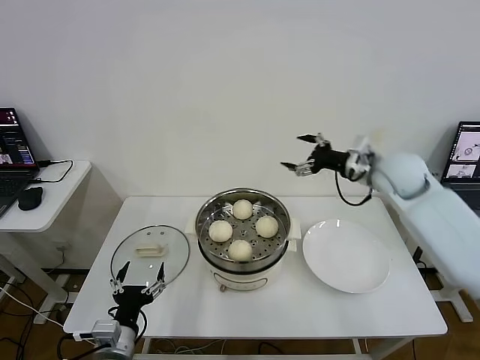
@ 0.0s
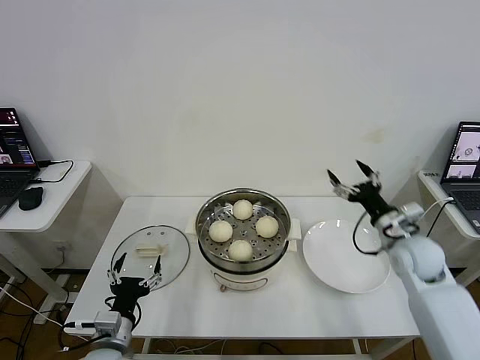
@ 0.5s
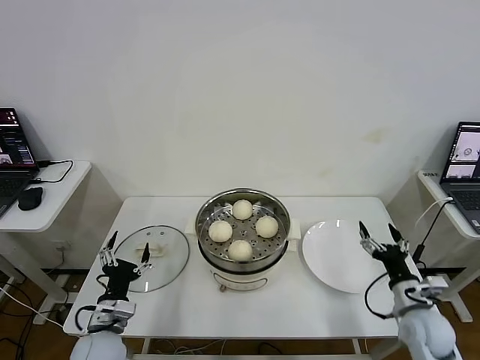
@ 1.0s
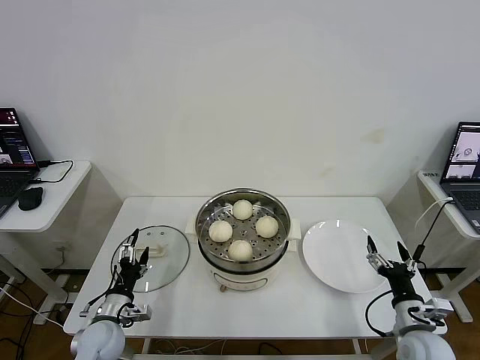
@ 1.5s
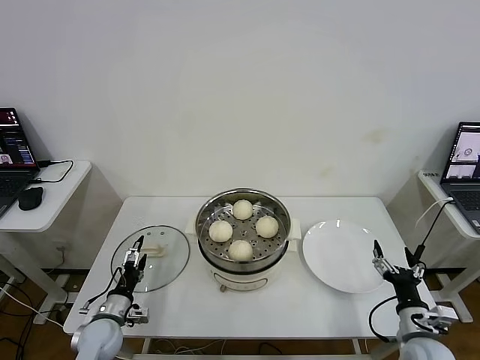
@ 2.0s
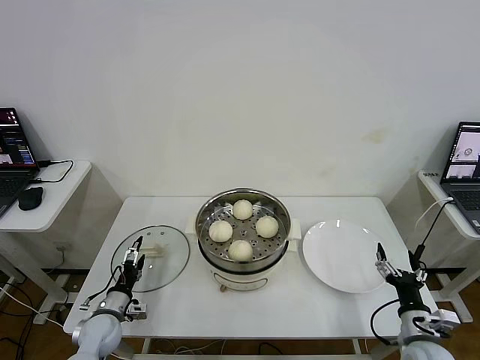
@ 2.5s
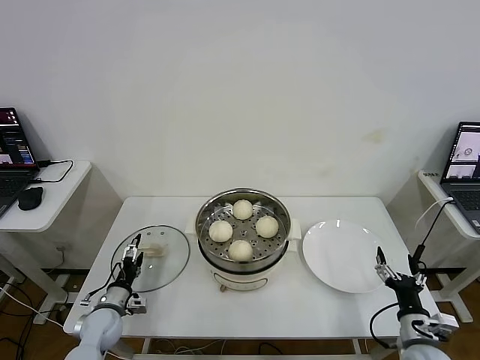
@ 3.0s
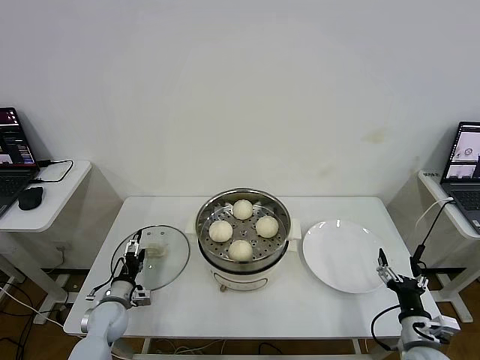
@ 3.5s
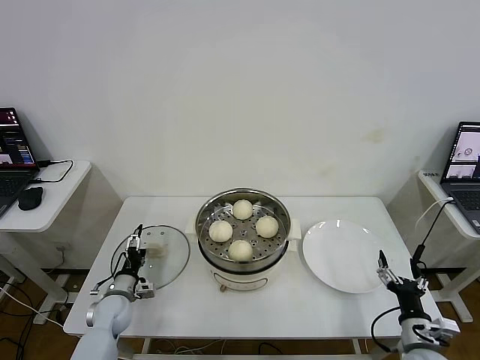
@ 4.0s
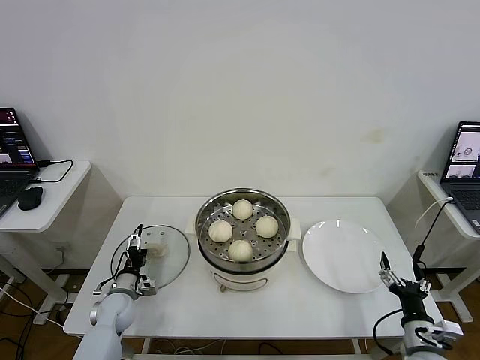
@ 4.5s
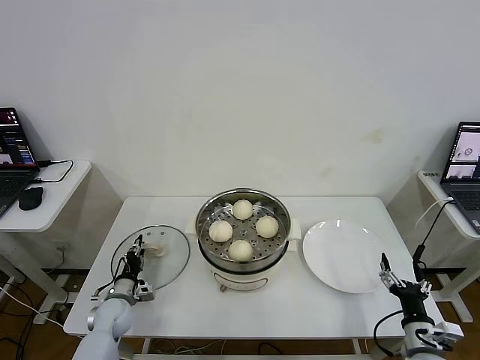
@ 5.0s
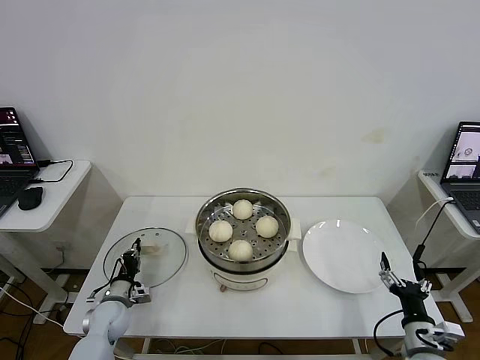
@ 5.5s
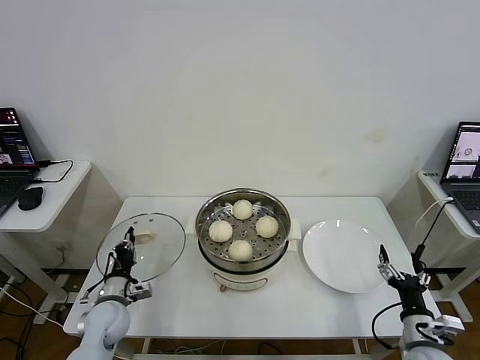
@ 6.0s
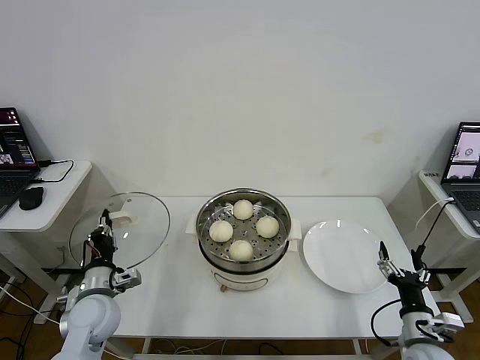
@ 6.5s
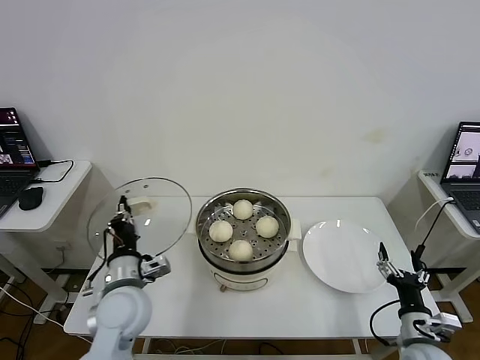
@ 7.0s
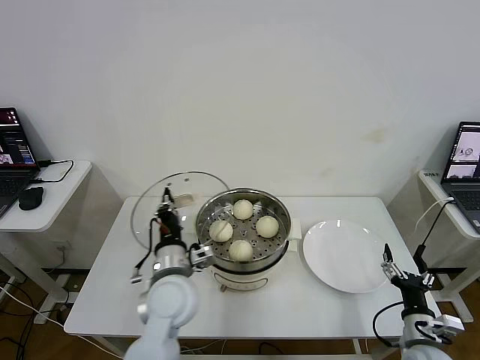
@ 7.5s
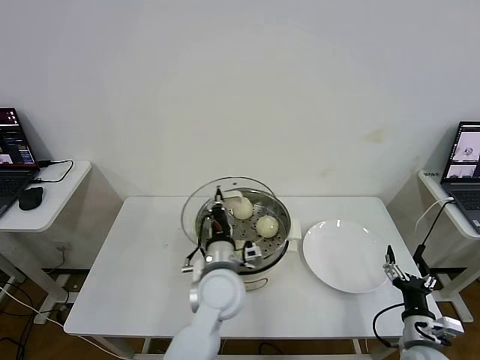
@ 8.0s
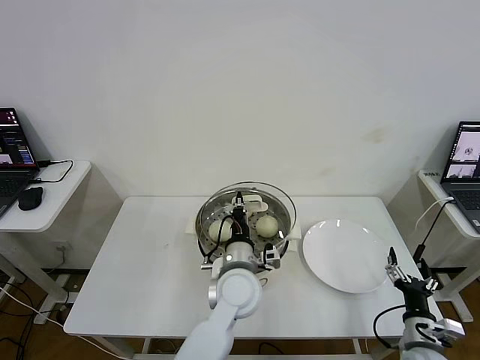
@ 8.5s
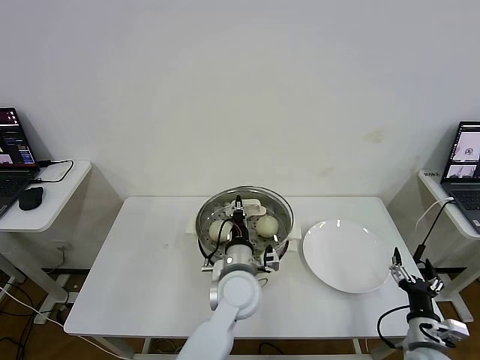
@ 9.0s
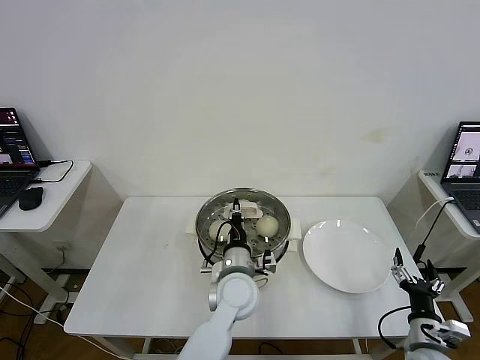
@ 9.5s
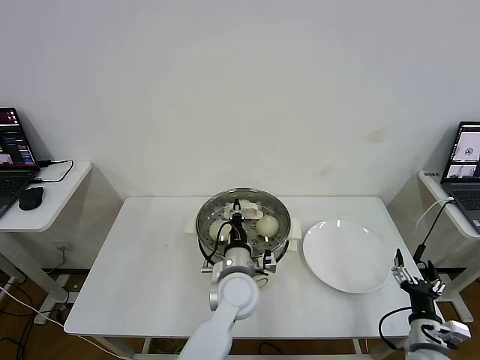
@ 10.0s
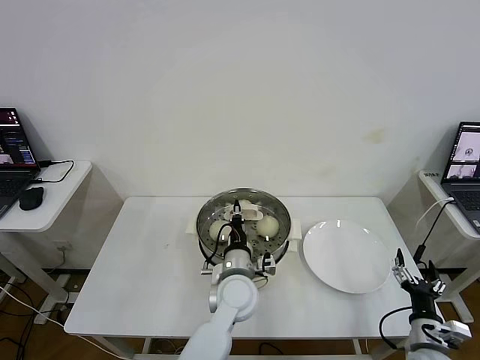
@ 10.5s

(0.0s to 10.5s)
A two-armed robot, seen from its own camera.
Task of the whole recording: take steamed baozi put them in steamer then cover it.
Step, 0.0s - 5.5s: Grasp the pot lid with left gripper.
0.0s - 2.0s: The right gripper goes approximately 40 cm backward and downward. The left gripper goes approximately 15 cm forward, downward and to the left.
2.0s - 4.0s: The left gripper goes roughly 5 cm forward.
4.0s - 6.5s: The left gripper heads upward and backward, covering approximately 15 cm, and closes up.
6.5s - 8.5s: The left gripper is displaced to the right by approximately 30 cm.
8.5s - 10.5s: The grippers make only small movements.

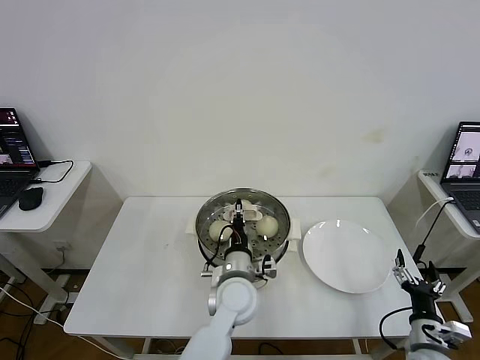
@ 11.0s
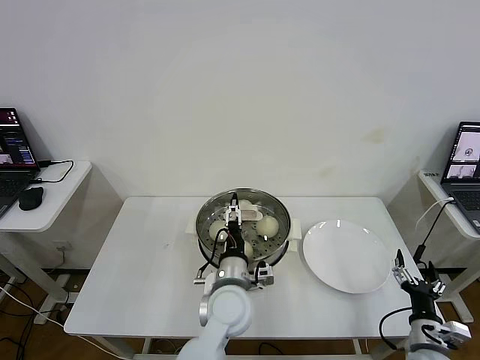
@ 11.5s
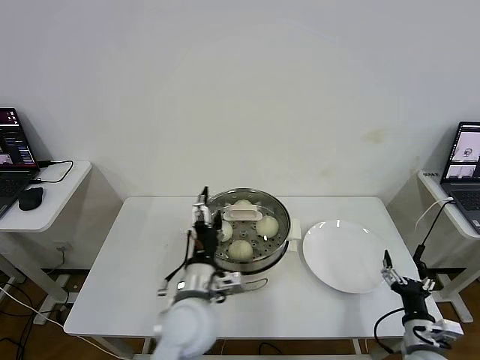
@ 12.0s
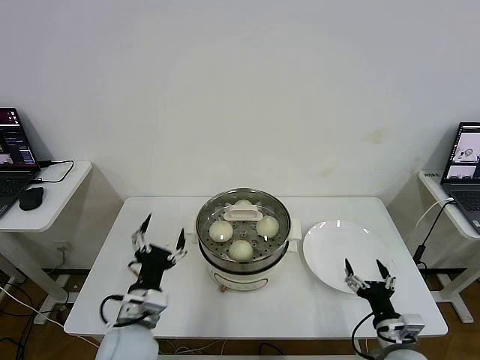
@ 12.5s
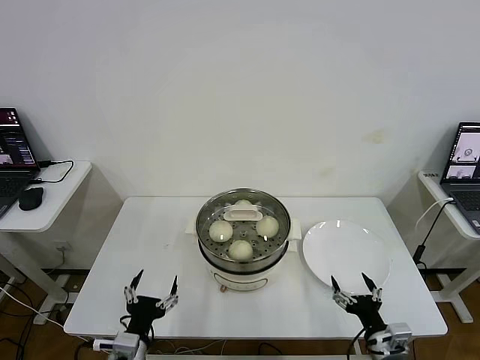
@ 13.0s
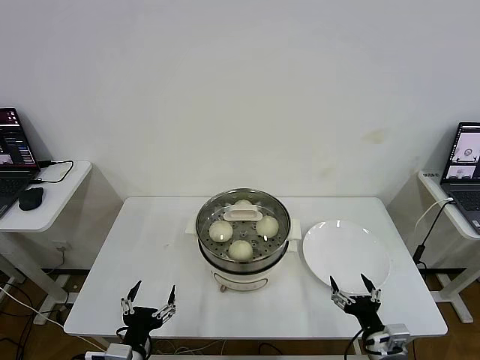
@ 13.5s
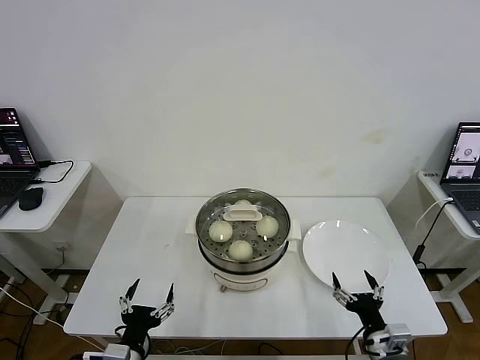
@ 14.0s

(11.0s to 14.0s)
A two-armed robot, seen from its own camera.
Task of the whole recording: take steamed baozi put them in steamer then cover it.
11.0s - 12.5s: The left gripper heads to the left and backward, covering approximately 20 cm, and opens its fingers.
12.5s - 14.0s: The left gripper heads backward, downward and to the left, covering some 15 cm.

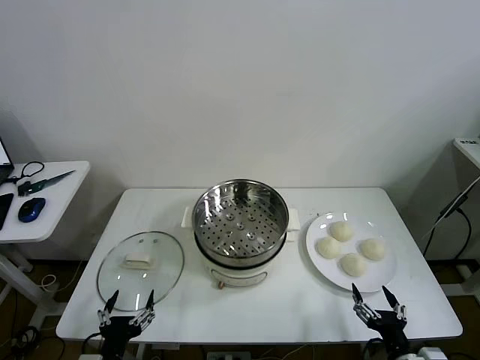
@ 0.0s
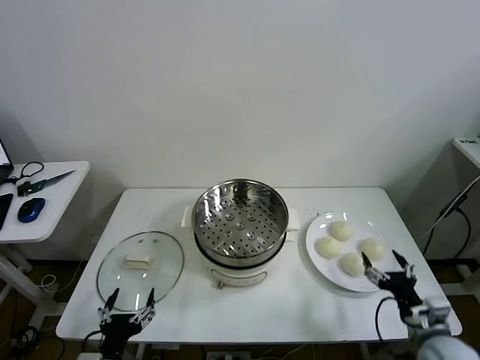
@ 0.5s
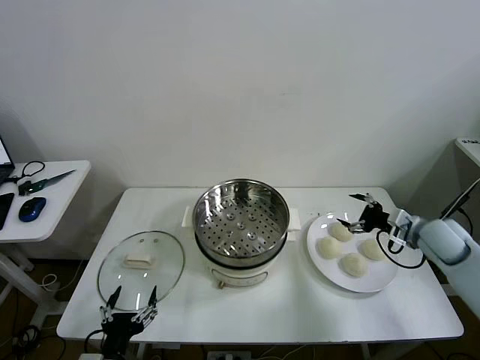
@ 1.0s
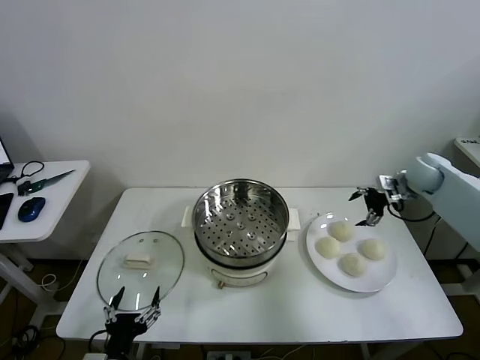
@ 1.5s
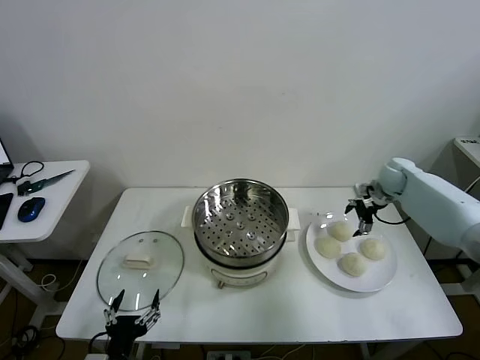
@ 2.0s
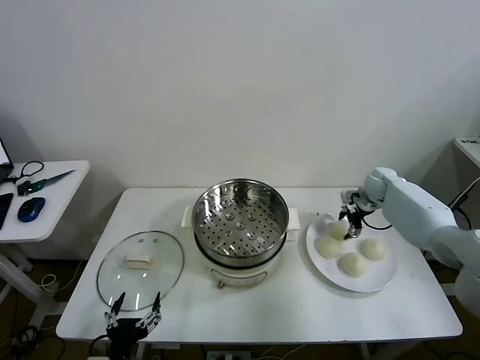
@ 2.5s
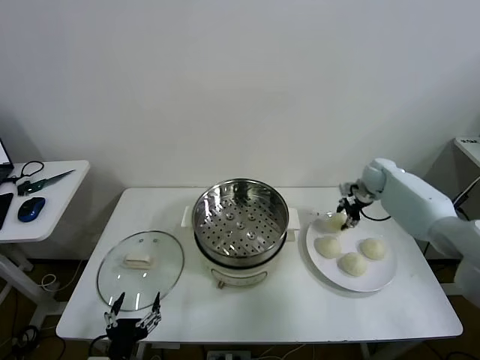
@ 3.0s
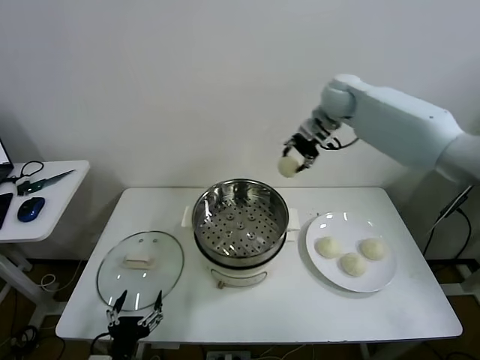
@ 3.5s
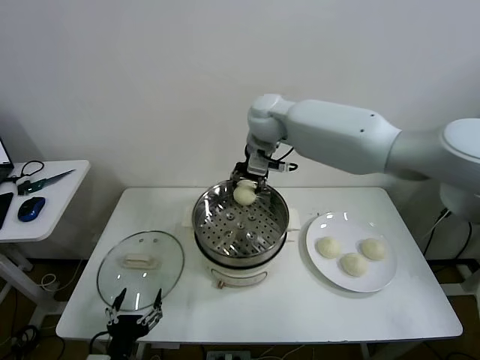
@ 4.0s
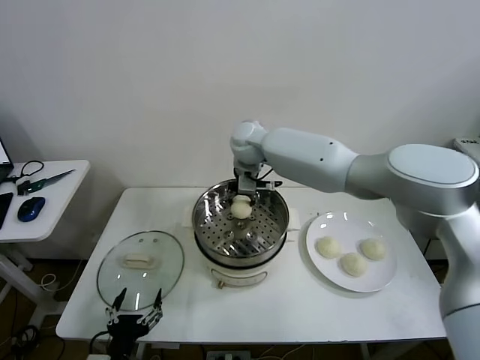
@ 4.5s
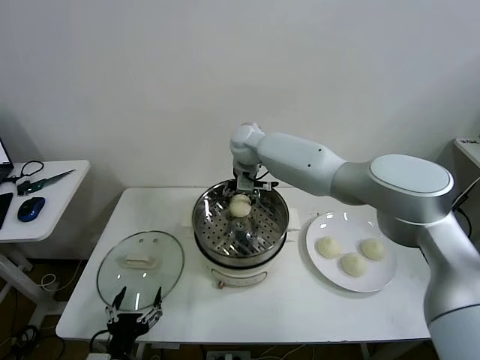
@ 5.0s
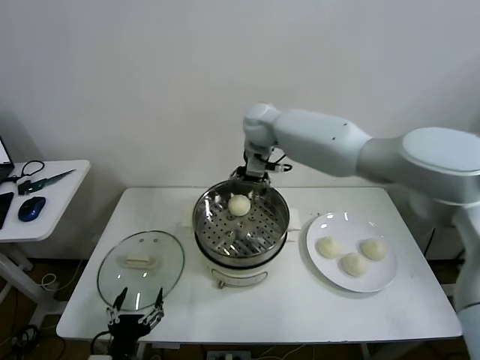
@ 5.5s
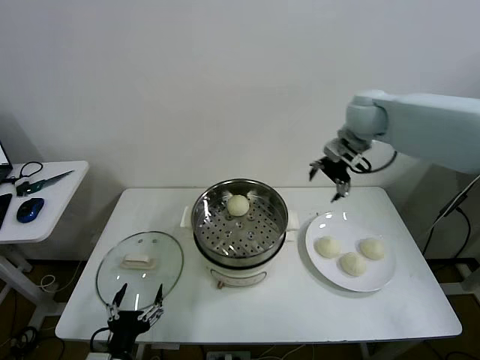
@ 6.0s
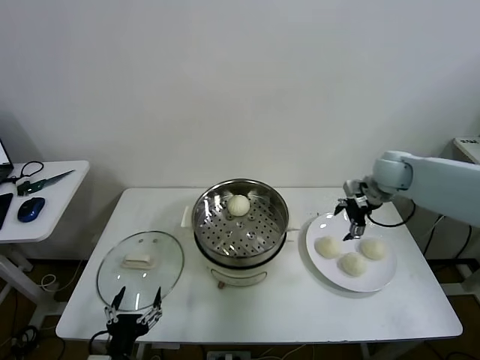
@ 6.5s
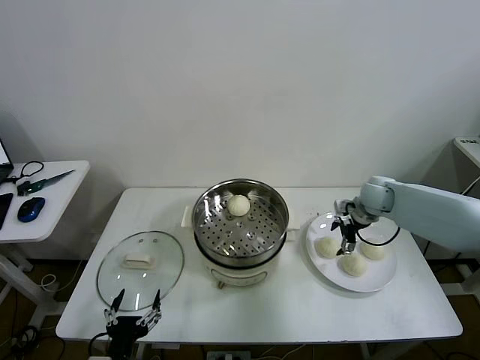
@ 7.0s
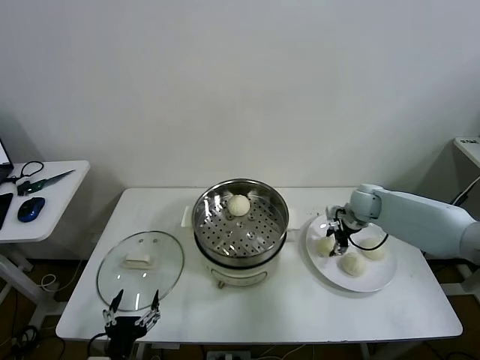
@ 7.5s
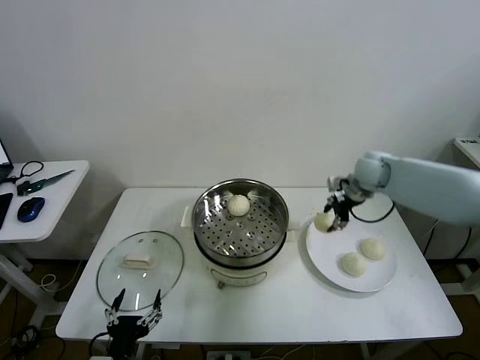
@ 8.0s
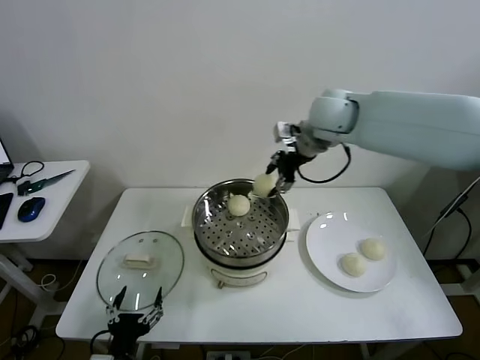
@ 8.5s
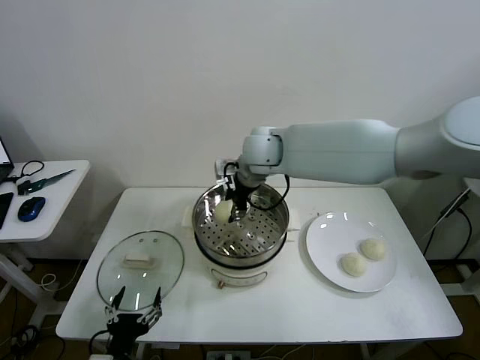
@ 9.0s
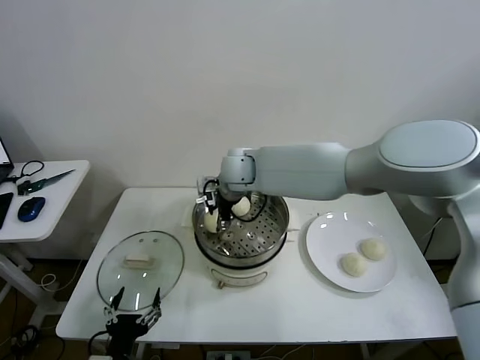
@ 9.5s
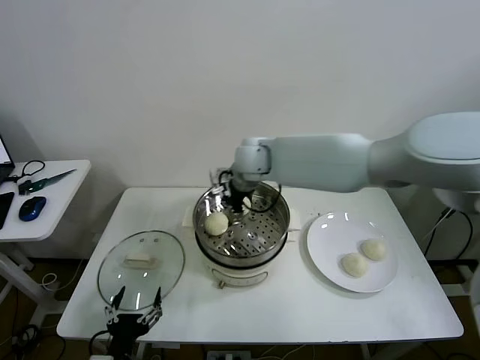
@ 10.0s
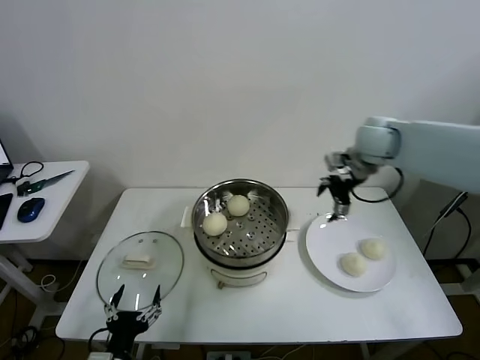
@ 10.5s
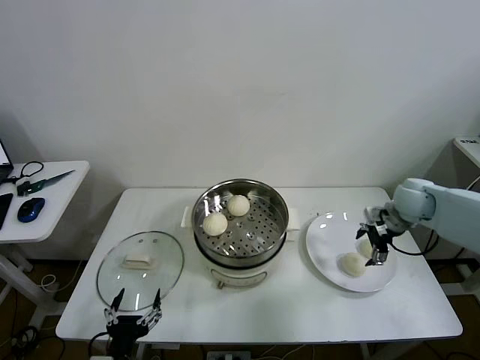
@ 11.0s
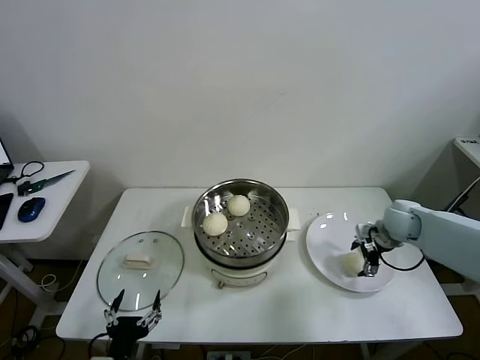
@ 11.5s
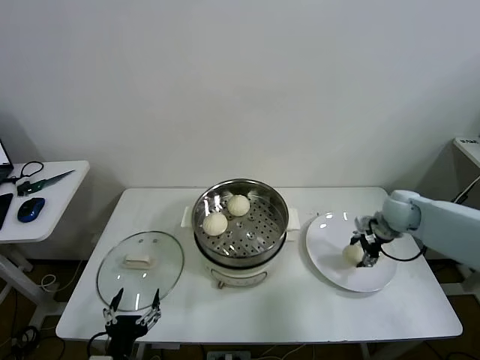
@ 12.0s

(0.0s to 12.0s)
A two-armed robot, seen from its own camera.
Task of the whole recording: take steamed baozi put them in steamer then cover it.
Step, 0.0s - 2.5s: Grasp the baozi in the plate with right gripper.
Step, 3.0s - 5.0s: Place the baozi on the steamer with right gripper.
Step, 5.5s - 7.0s: Grasp the baozi in the plate with right gripper.
Step, 7.5s - 9.5s: Place the baozi on the steamer with right gripper.
Step, 10.0s - 11.5s: Grasp the baozi in the plate with right gripper.
2.0s - 4.0s: The right gripper moves to the left and upward, roughly 40 cm, and closes.
4.0s - 6.0s: The right gripper goes some 25 cm to the right, and opens up.
6.0s - 8.0s: The right gripper travels downward by about 10 cm, and closes up.
8.0s - 10.0s: The right gripper shifts approximately 25 cm to the left, and opens its fingers.
10.0s - 12.0s: The right gripper heads to the right, covering roughly 35 cm, and closes up.
